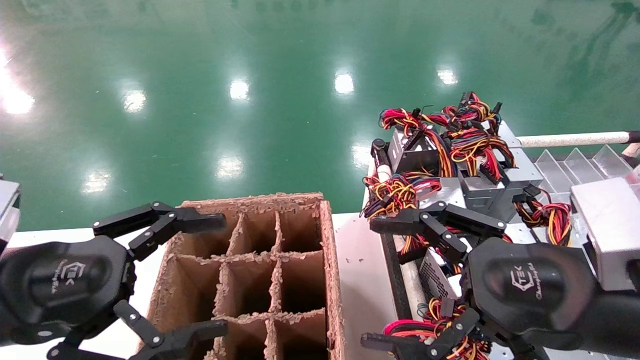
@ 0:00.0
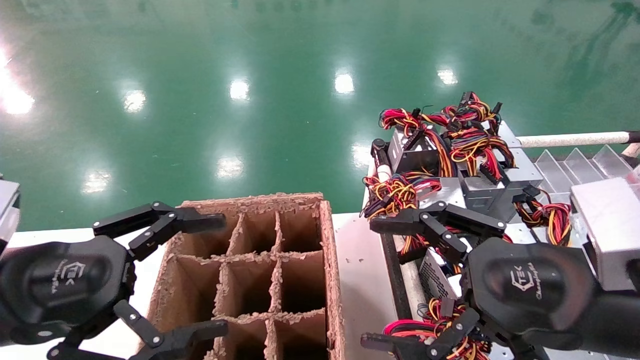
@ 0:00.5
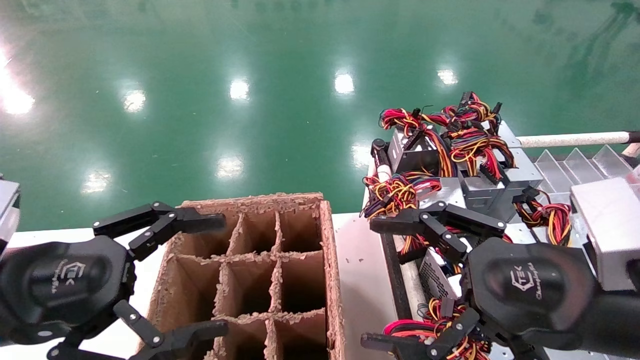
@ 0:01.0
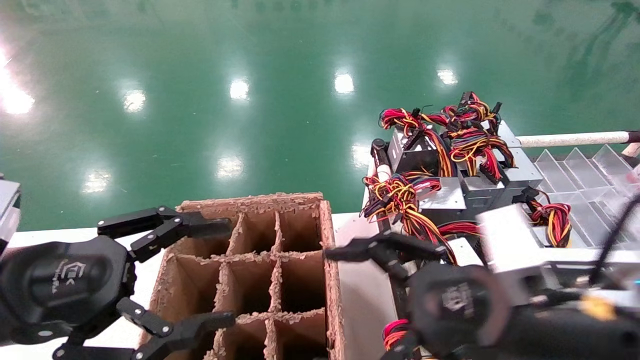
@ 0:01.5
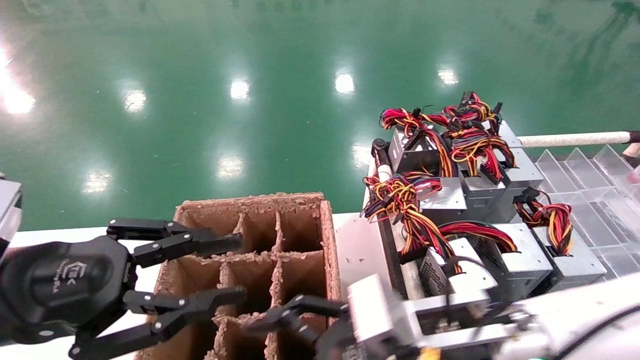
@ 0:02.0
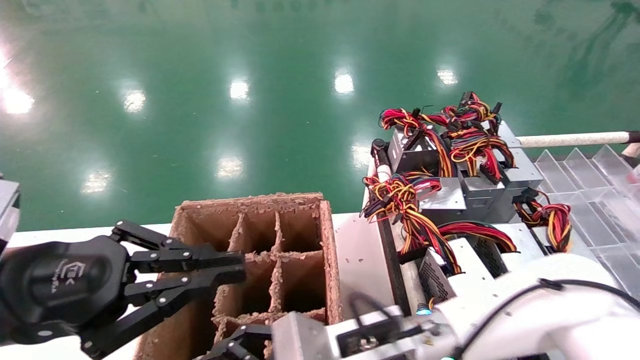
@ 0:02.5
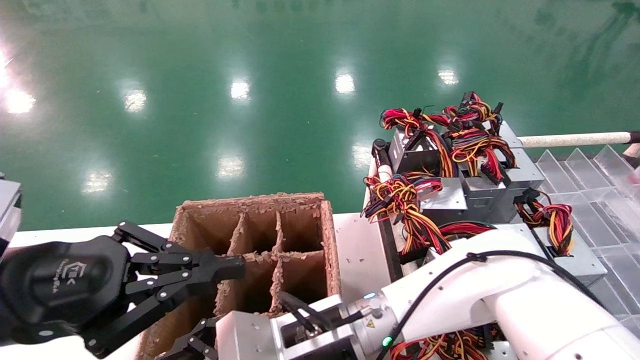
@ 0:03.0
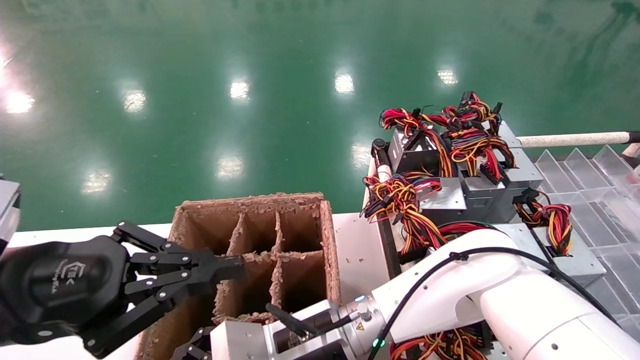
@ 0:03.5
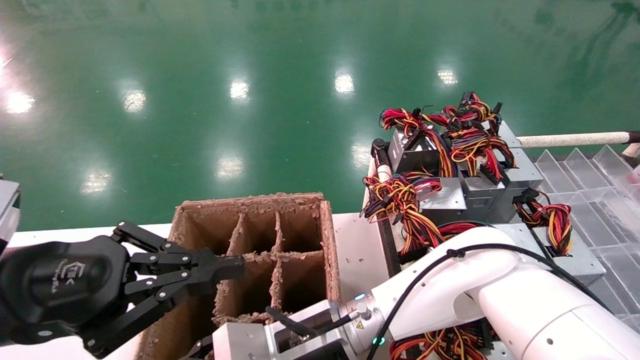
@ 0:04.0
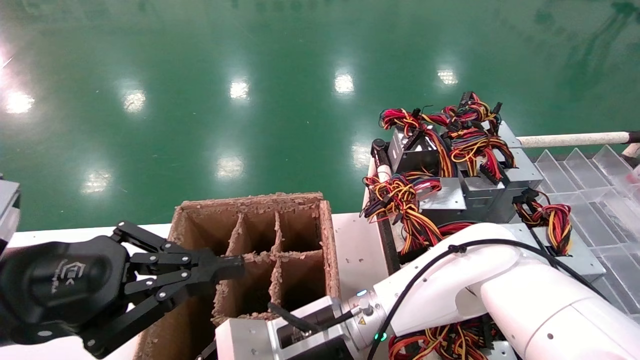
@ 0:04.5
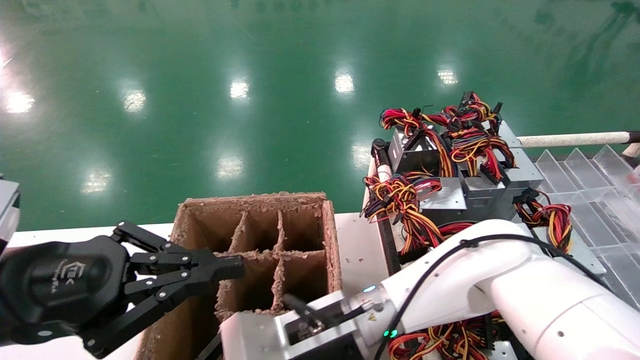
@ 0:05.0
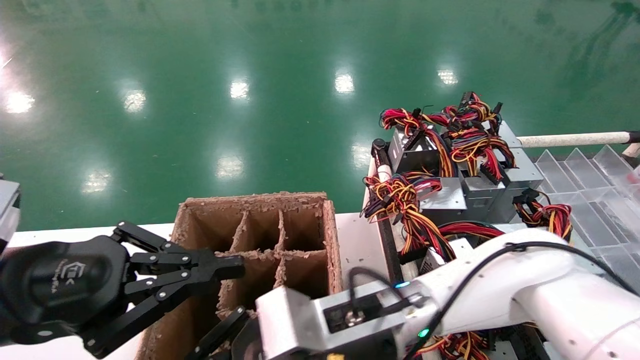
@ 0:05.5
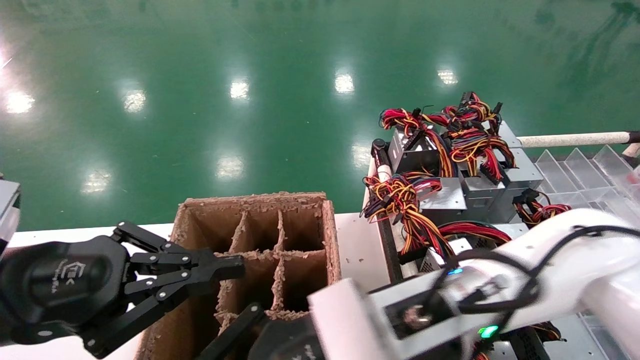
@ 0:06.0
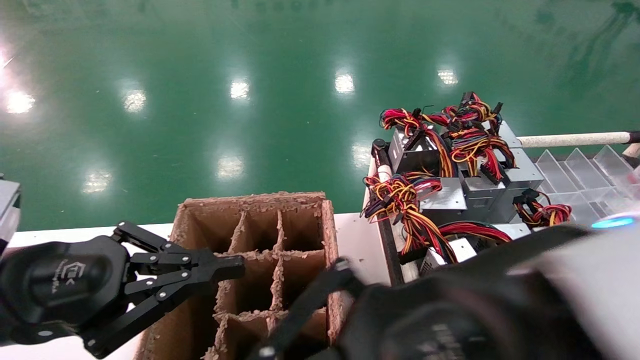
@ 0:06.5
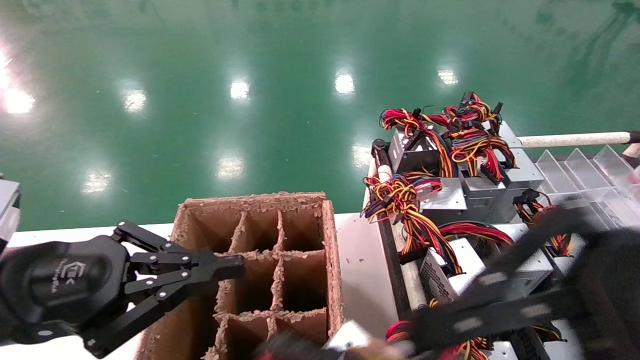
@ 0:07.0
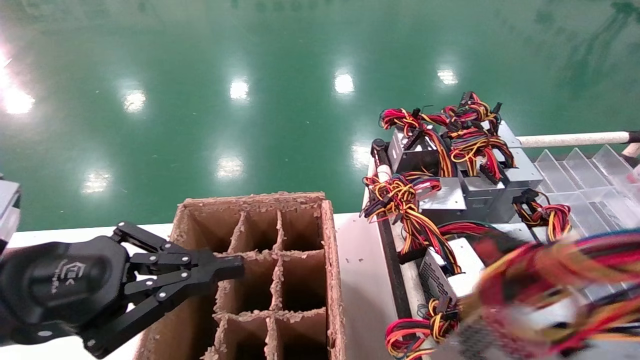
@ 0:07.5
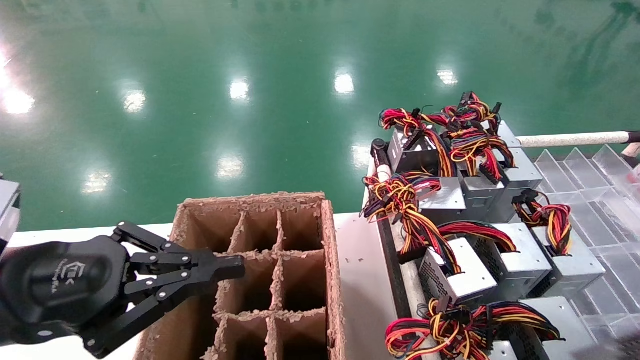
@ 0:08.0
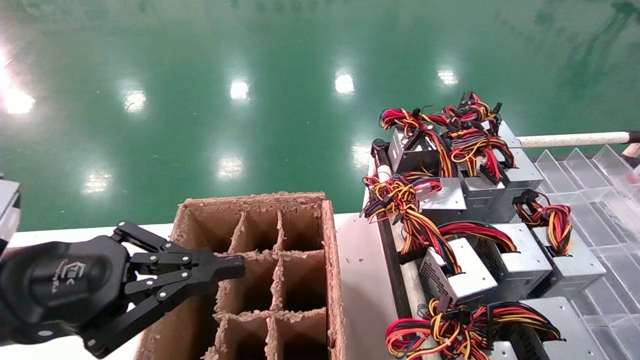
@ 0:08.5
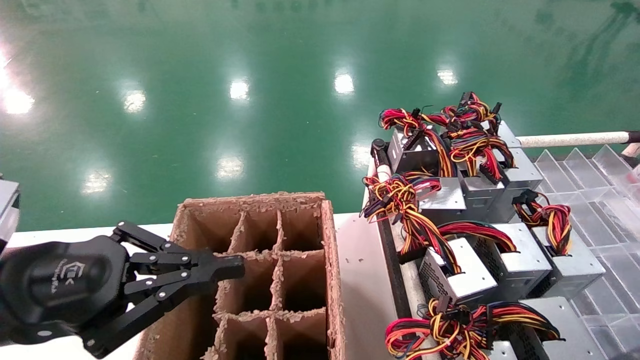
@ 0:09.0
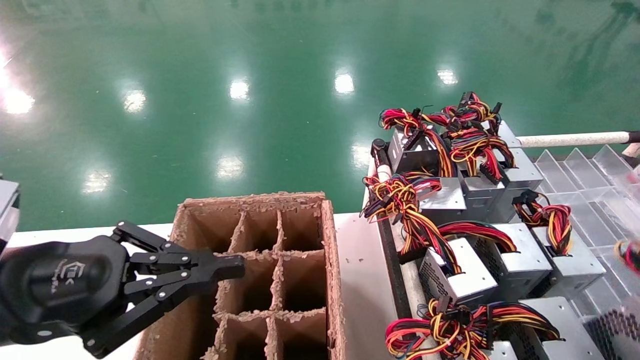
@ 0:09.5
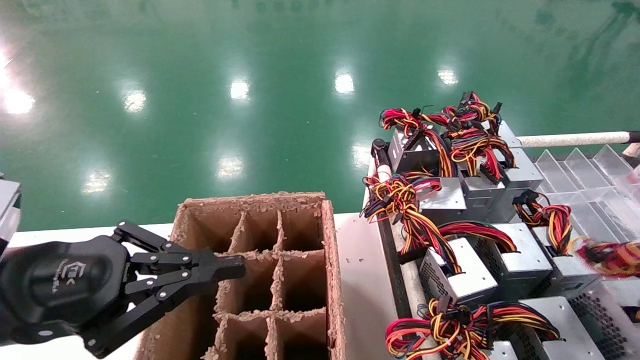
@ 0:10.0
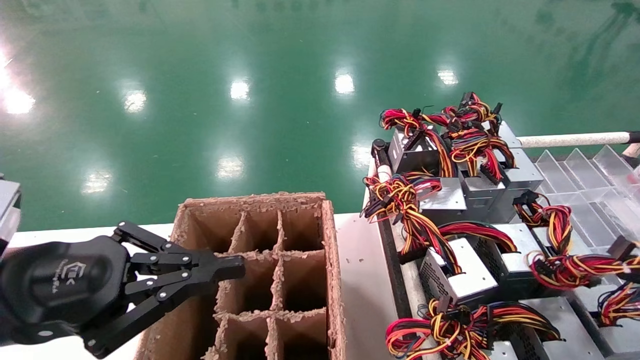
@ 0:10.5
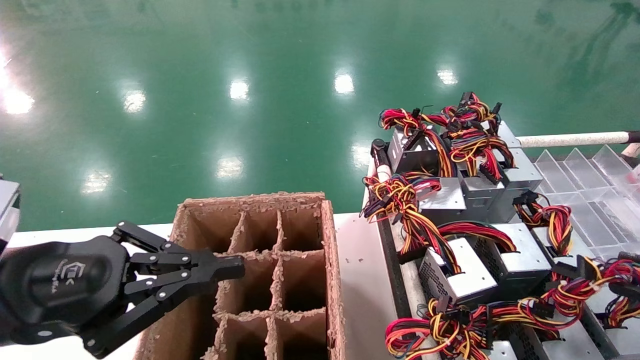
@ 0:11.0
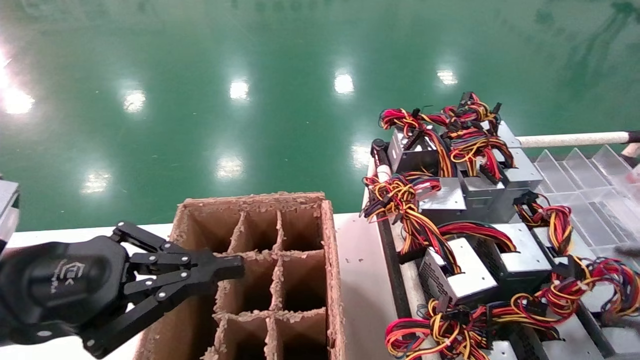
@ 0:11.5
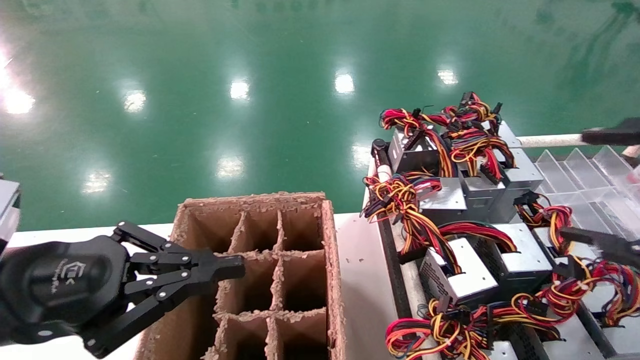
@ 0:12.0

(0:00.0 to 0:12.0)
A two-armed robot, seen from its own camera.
Step, 0:01.5 - 0:04.5: Grab the main unit power supply from the containment box.
Step, 0:05.0 - 0:10.5: Place the main unit power supply in the designated area.
0:00.0 - 0:02.0: The right gripper travels to the left, downward and forward by about 15 cm. Meanwhile the left gripper closes.
0:02.0 - 0:04.0: The left gripper closes its fingers, while the right gripper moves to the left and forward, some 15 cm.
0:04.0 - 0:06.0: The right gripper shifts some 15 cm upward, backward and to the right, and closes.
0:06.0 - 0:08.0: The right gripper goes approximately 40 cm to the right and backward.
0:08.0 - 0:10.0: The right gripper moves forward, downward and to the right, approximately 15 cm.
0:10.0 - 0:12.0: The right gripper moves to the left and upward, about 15 cm, and opens its fingers.

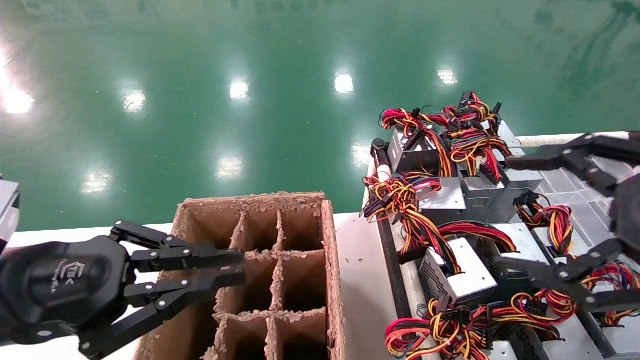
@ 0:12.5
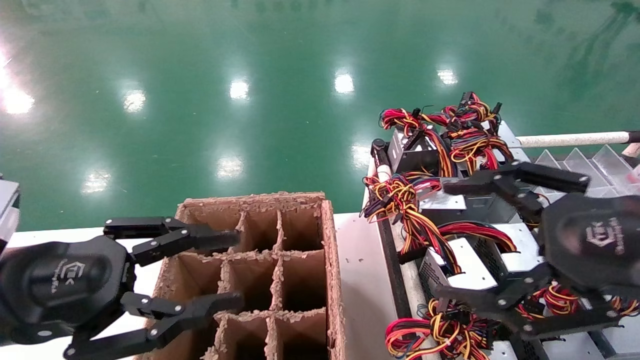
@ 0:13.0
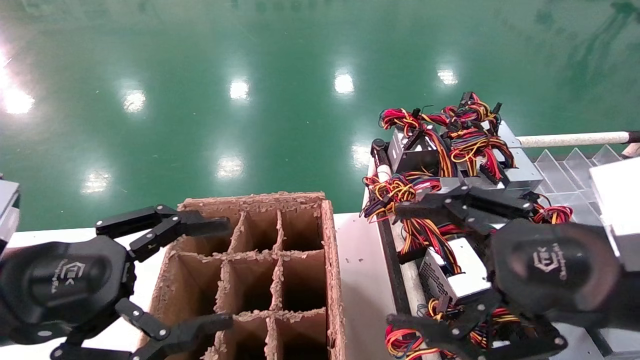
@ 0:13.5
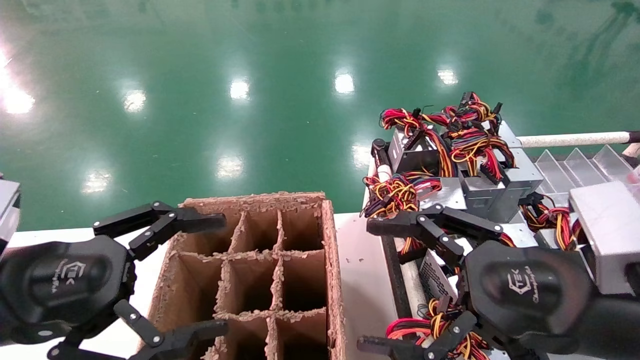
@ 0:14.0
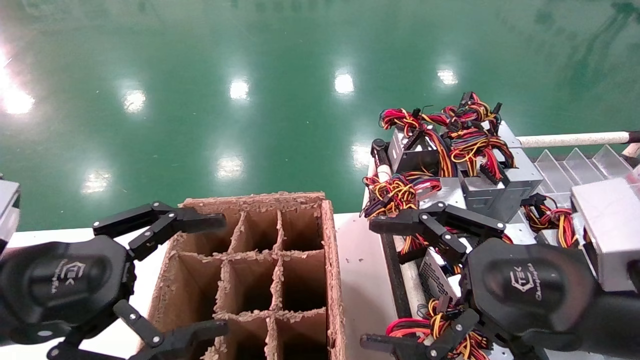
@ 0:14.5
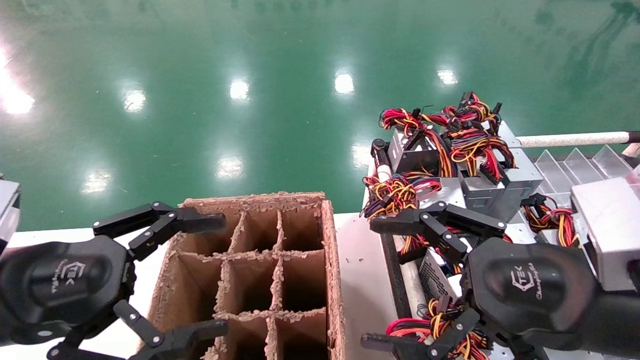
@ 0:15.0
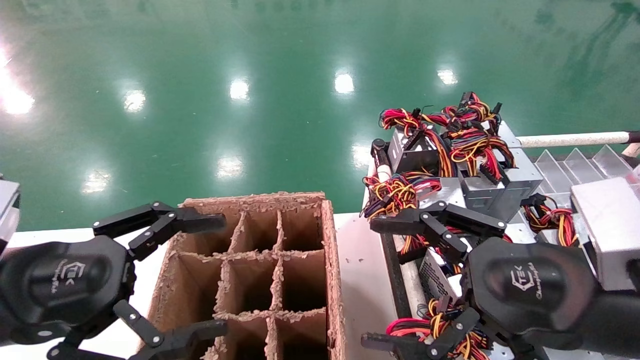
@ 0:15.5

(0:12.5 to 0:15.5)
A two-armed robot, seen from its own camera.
0:12.5 - 0:14.0: The left gripper opens its fingers. Meanwhile the right gripper heads to the left and downward, covering some 10 cm.
0:14.0 - 0:15.5: The two grippers keep their place.

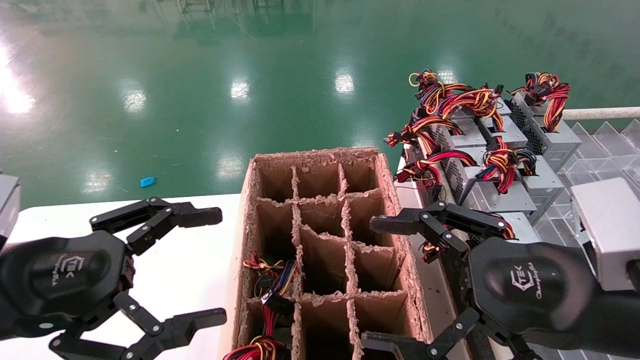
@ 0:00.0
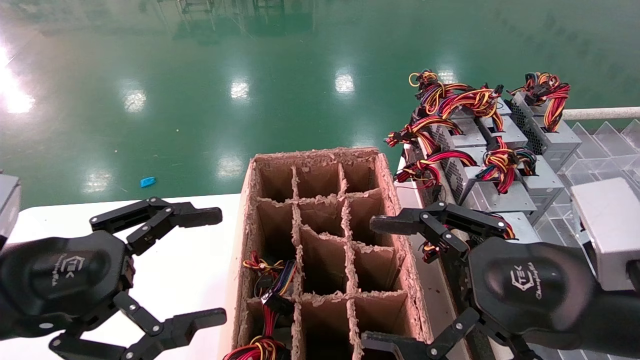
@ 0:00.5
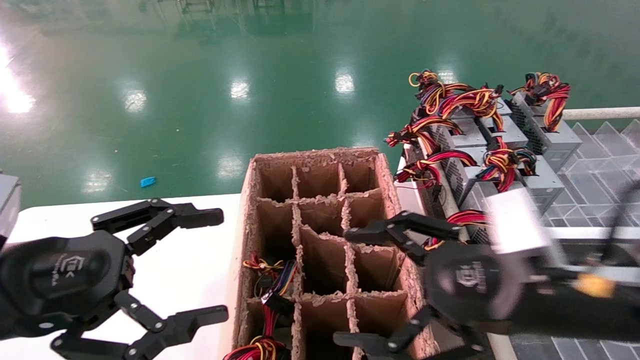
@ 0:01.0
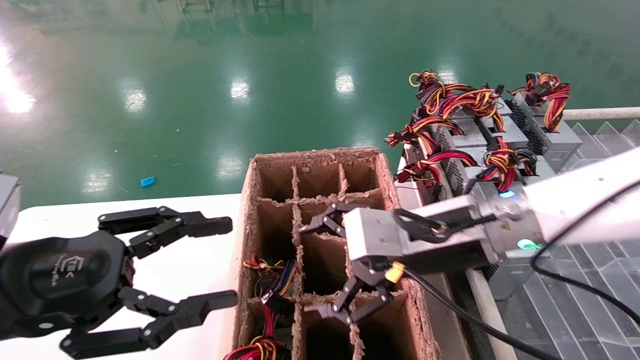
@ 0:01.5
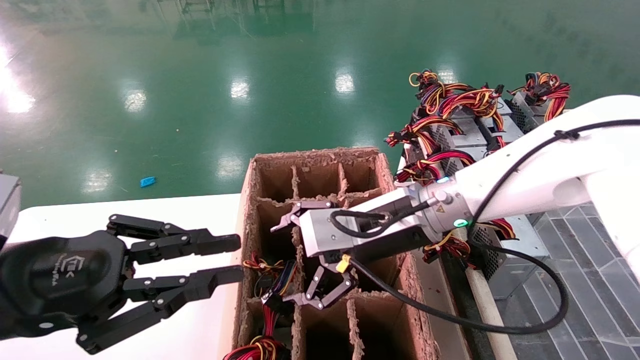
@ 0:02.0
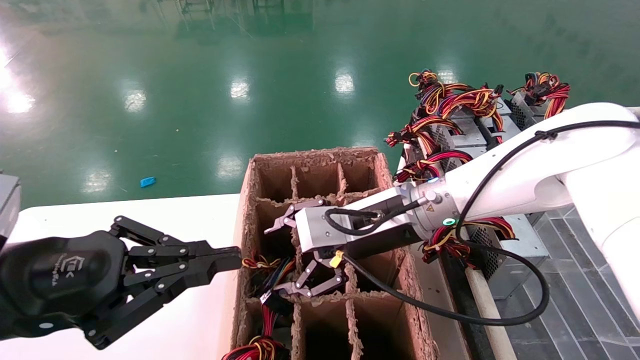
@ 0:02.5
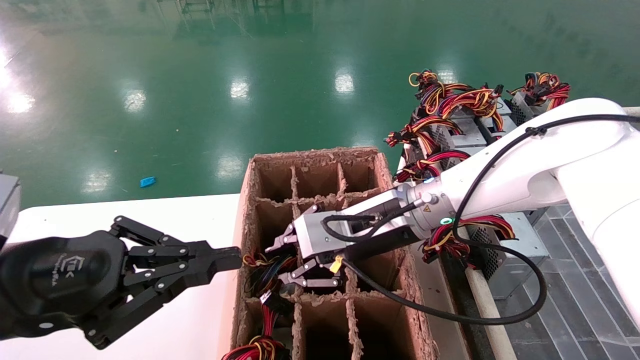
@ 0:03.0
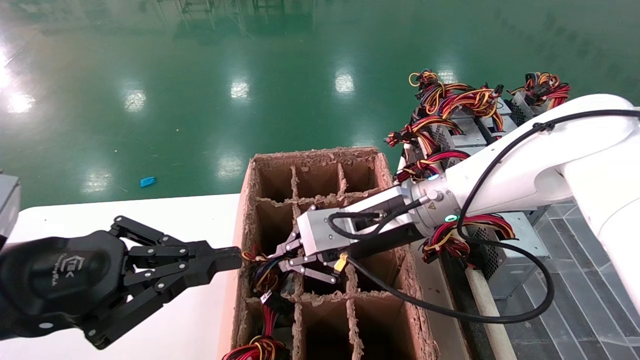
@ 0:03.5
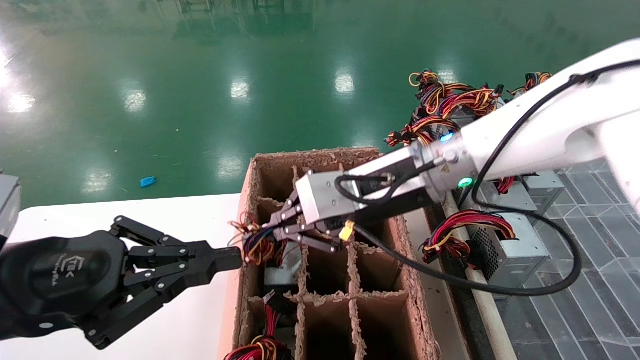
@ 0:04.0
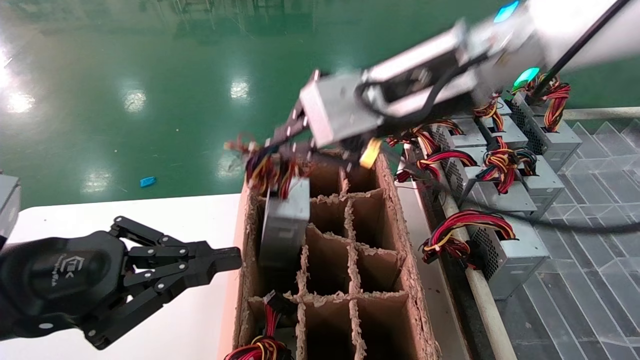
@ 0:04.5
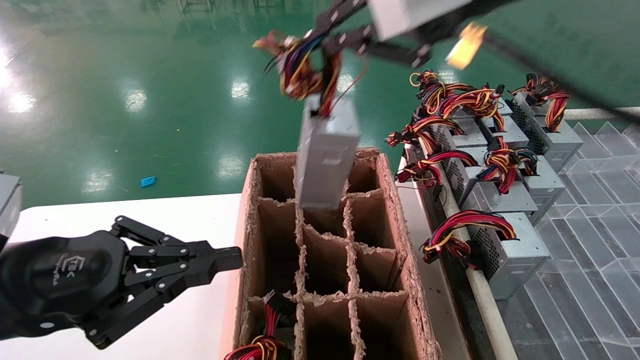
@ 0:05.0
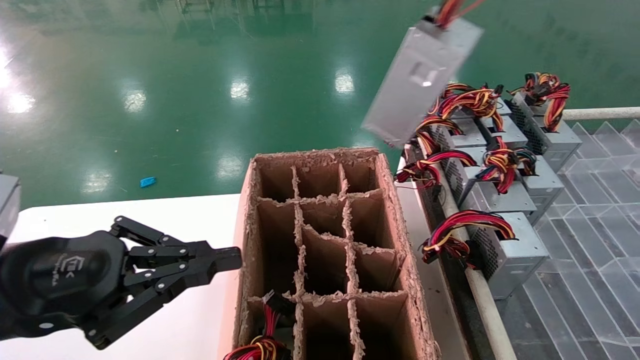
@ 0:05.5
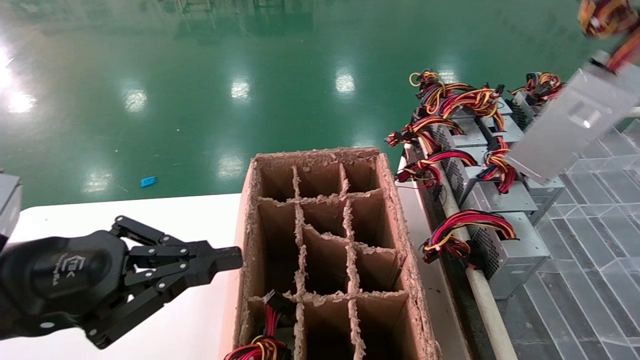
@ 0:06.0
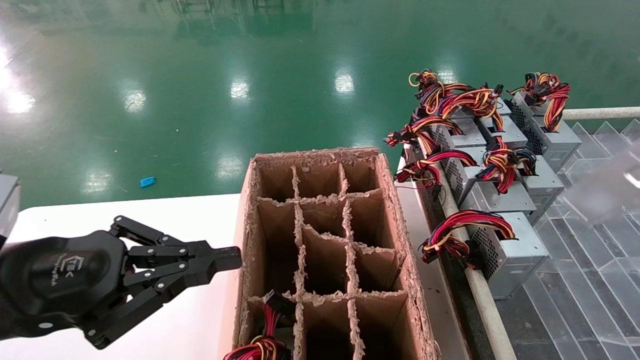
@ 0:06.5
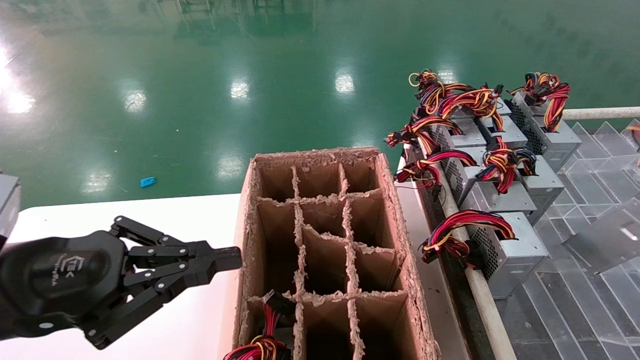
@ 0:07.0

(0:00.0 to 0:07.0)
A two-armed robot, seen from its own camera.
Step, 0:01.5 - 0:03.5: Grab the main unit power supply from the containment box.
0:00.0 - 0:02.0: The left gripper closes up, while the right gripper is displaced forward and to the left by some 20 cm.
0:02.0 - 0:03.5: The right gripper closes up.
0:03.5 - 0:05.0: The right gripper goes approximately 30 cm upward and backward.
0:05.0 - 0:07.0: The right gripper heads to the right, covering roughly 25 cm.
